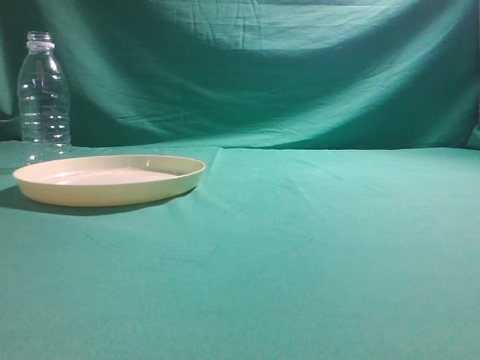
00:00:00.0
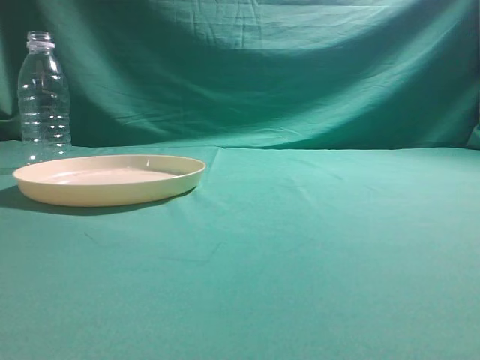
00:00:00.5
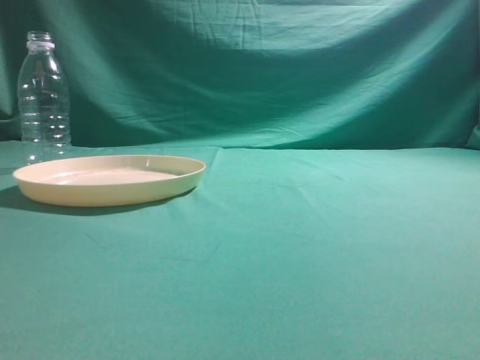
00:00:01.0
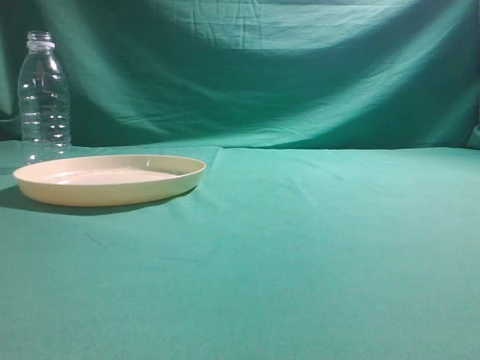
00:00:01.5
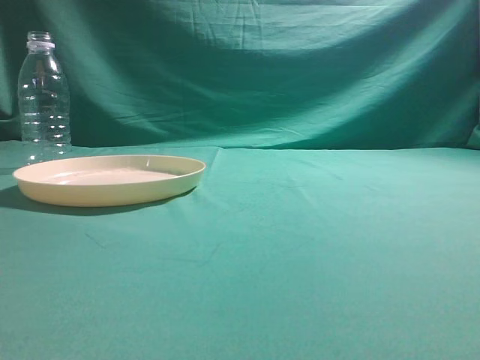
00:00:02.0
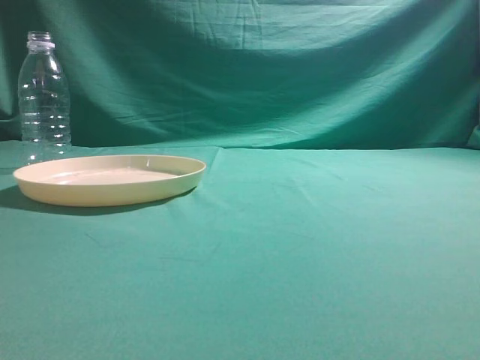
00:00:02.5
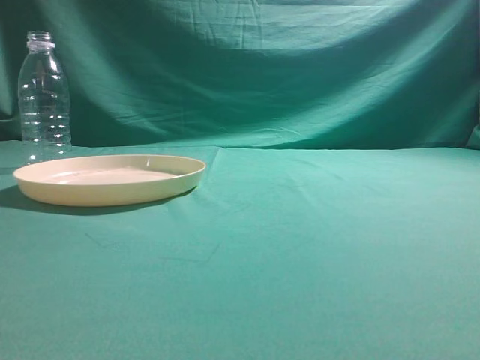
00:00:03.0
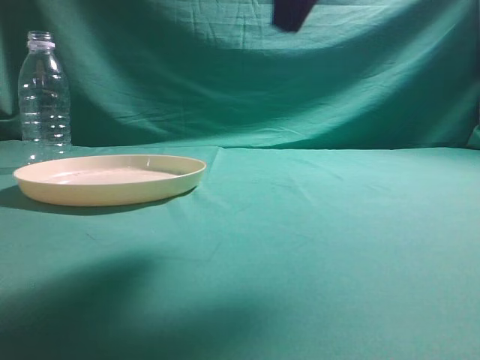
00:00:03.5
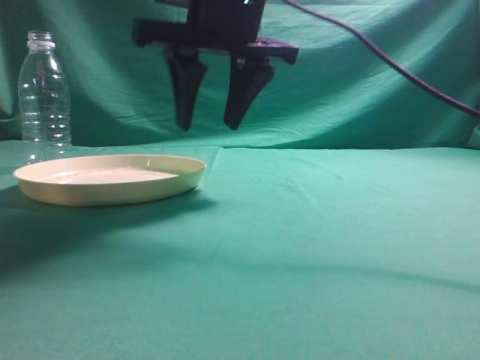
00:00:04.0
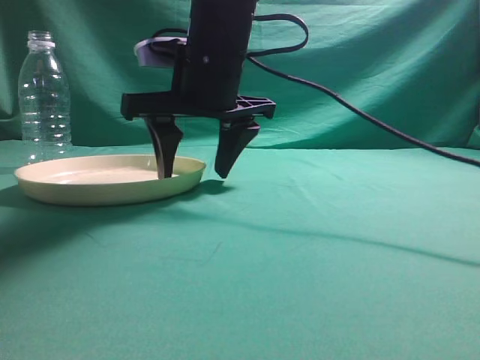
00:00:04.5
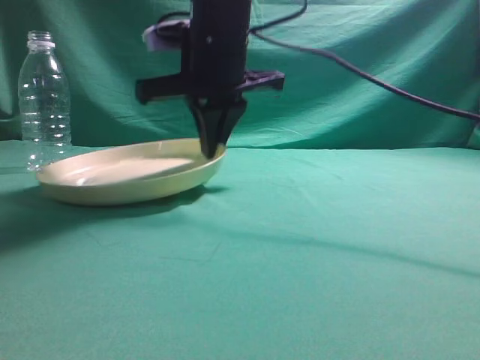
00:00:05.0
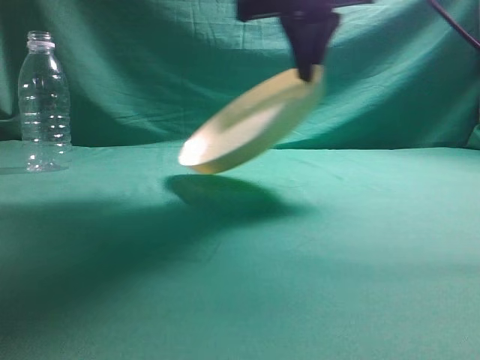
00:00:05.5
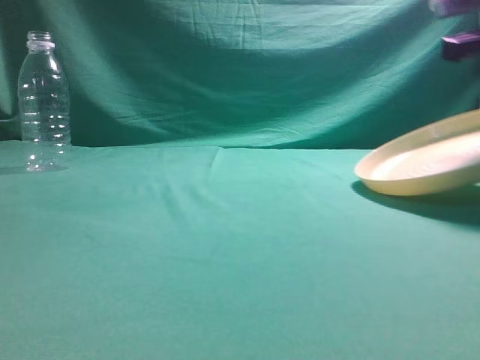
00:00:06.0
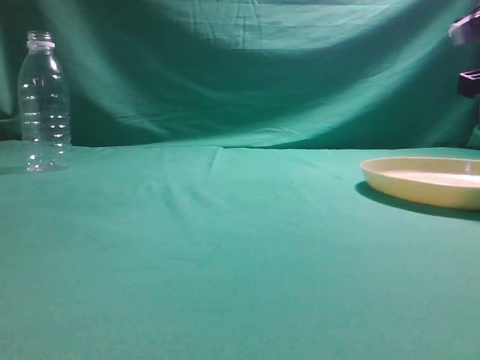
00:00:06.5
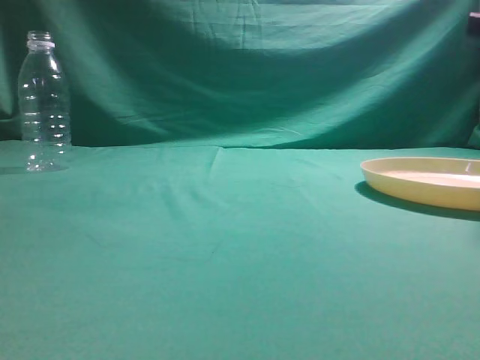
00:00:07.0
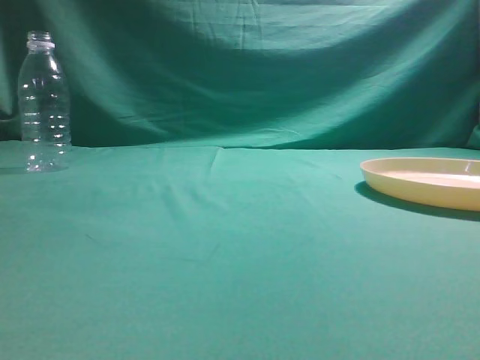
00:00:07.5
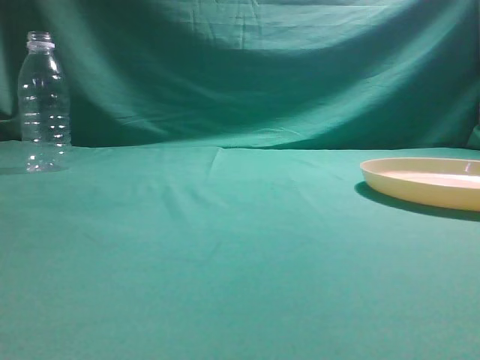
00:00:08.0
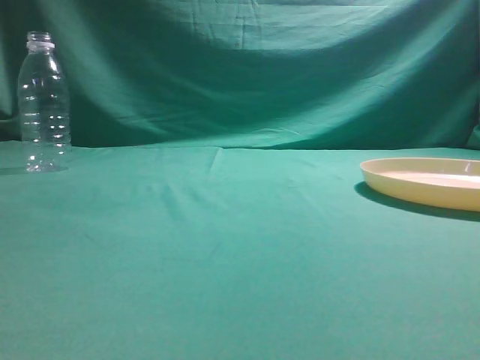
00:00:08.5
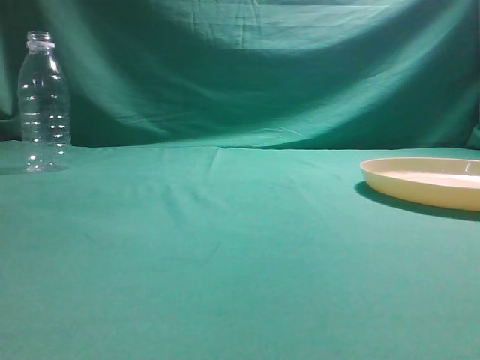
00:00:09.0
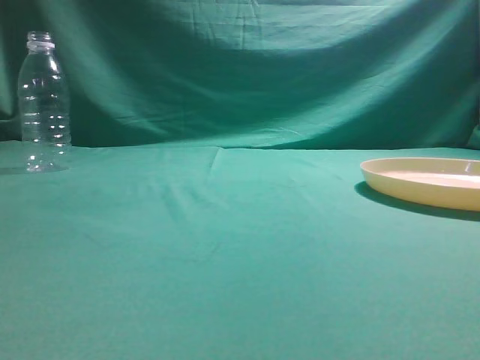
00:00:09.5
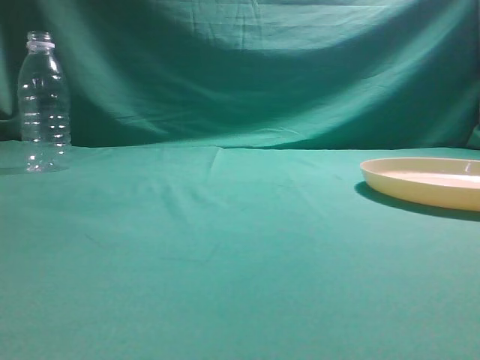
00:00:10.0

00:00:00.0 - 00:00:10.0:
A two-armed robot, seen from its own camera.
Step, 00:00:00.0 - 00:00:05.0: Pick the container that can hold fruits.
Step, 00:00:05.5 - 00:00:06.5: Move the picked object to the right side of the table.
00:00:02.0 - 00:00:04.0: The right gripper is displaced forward and to the left by roughly 40 cm, and opens its fingers.
00:00:04.0 - 00:00:06.0: The right gripper moves to the right, roughly 20 cm, and closes up.
00:00:06.0 - 00:00:08.0: The right gripper travels backward and upward by about 30 cm, and opens, then closes again.
